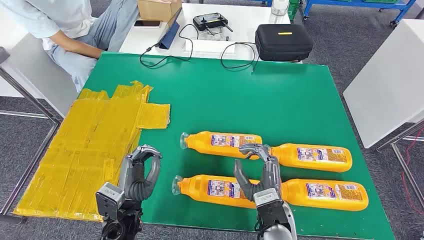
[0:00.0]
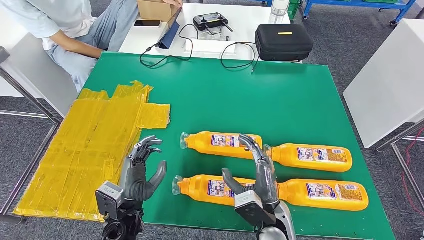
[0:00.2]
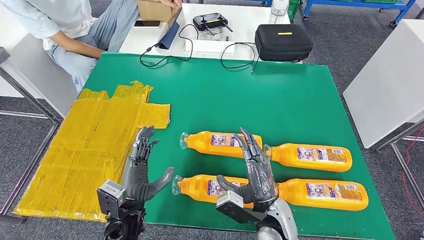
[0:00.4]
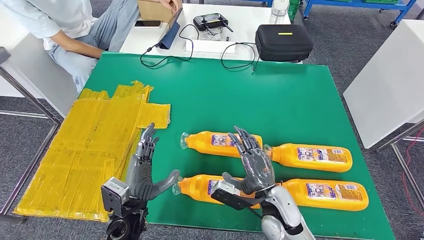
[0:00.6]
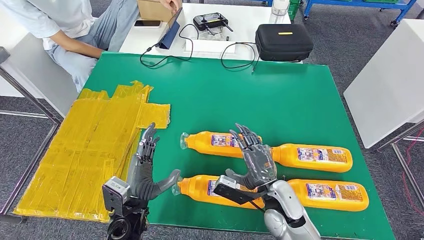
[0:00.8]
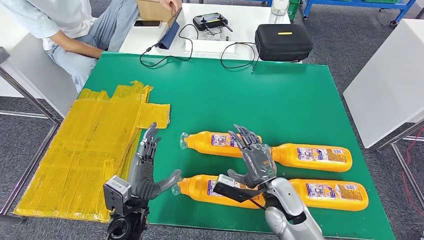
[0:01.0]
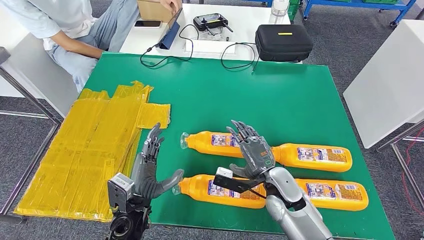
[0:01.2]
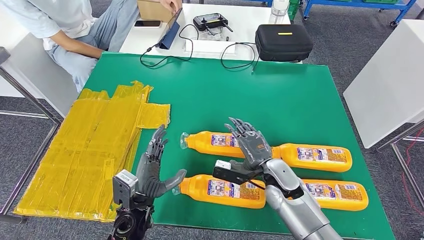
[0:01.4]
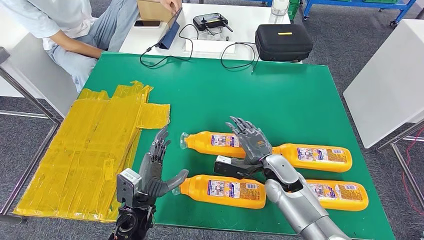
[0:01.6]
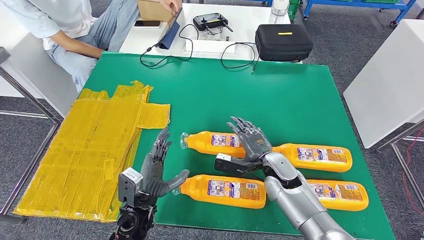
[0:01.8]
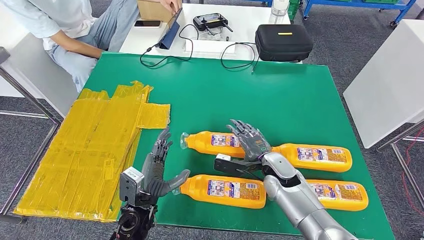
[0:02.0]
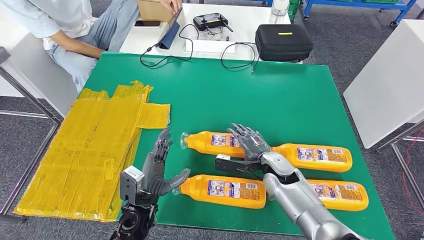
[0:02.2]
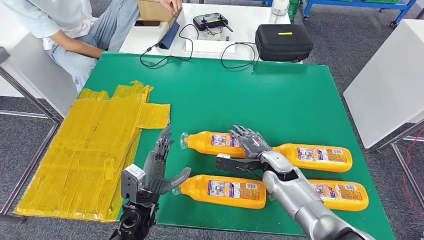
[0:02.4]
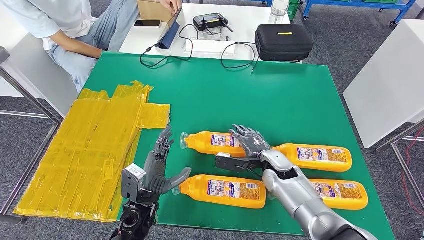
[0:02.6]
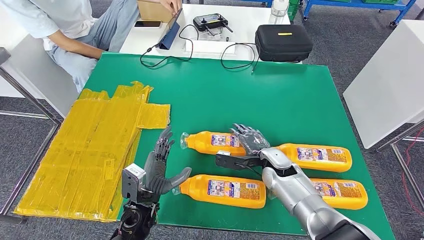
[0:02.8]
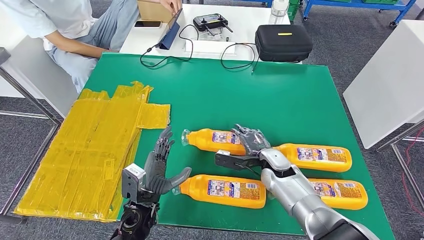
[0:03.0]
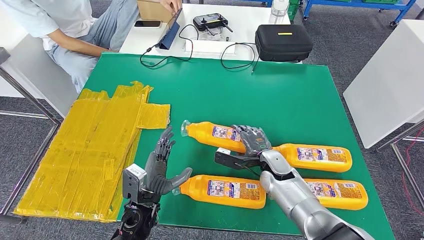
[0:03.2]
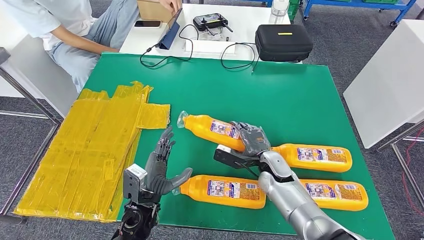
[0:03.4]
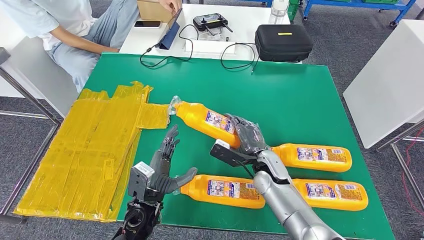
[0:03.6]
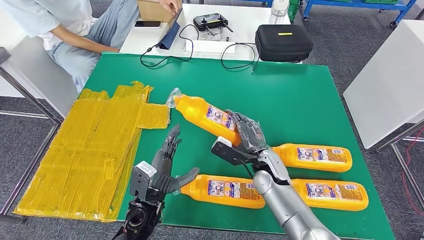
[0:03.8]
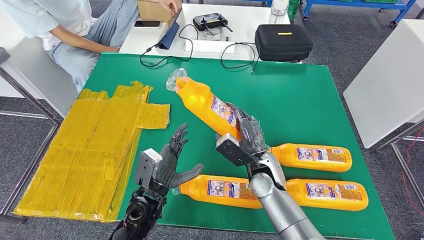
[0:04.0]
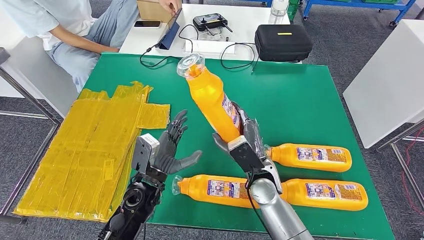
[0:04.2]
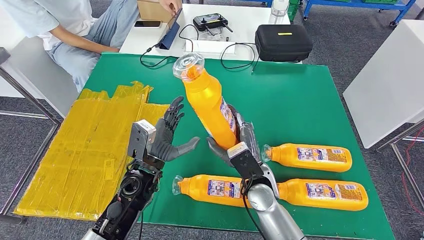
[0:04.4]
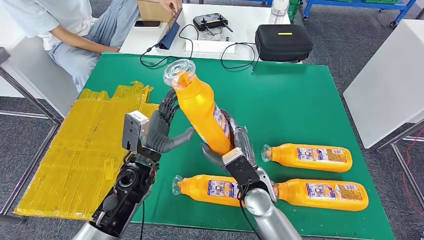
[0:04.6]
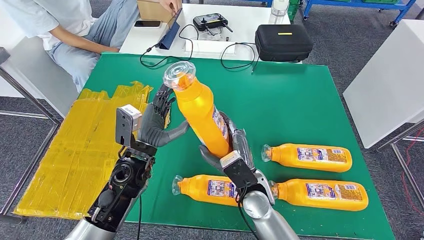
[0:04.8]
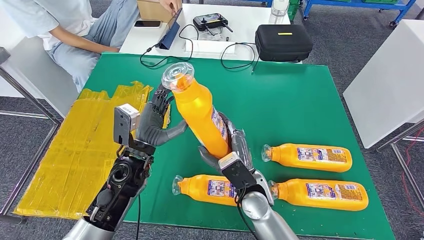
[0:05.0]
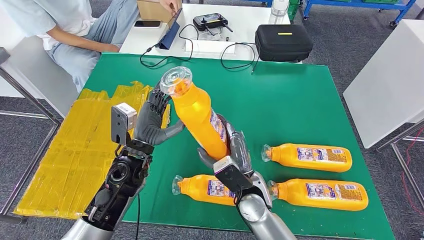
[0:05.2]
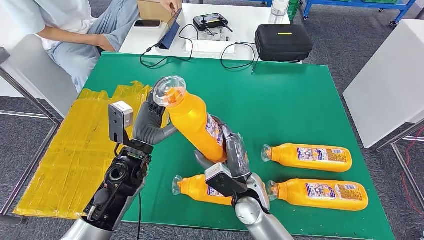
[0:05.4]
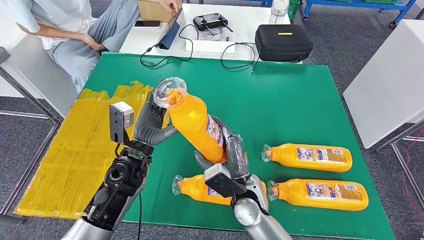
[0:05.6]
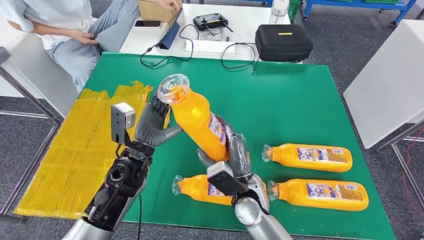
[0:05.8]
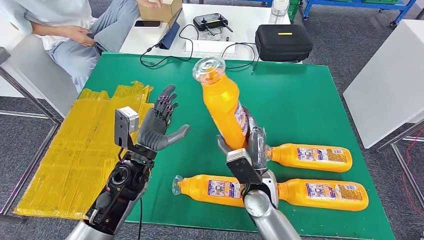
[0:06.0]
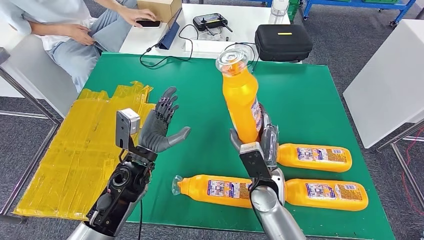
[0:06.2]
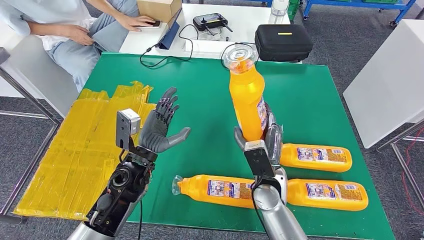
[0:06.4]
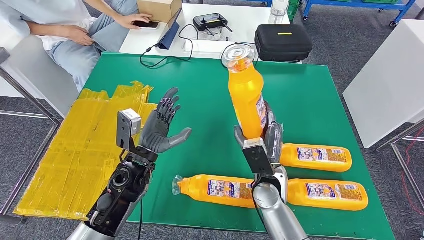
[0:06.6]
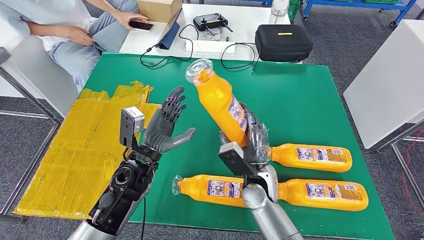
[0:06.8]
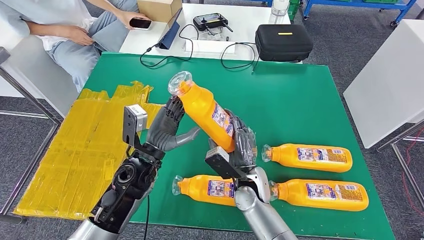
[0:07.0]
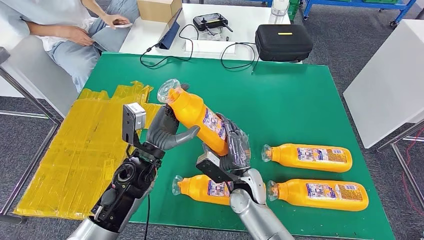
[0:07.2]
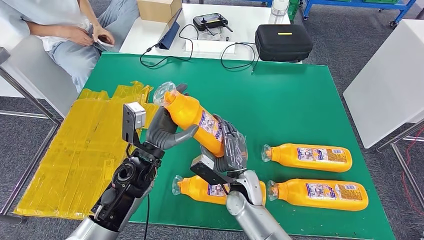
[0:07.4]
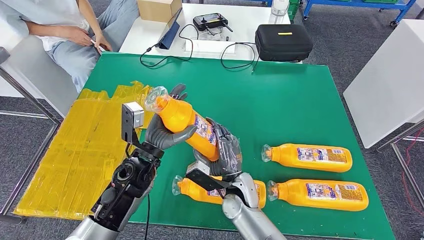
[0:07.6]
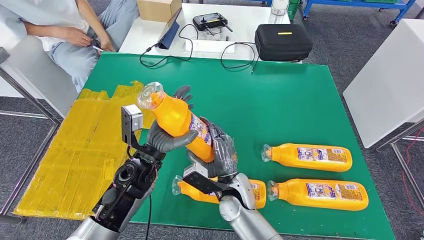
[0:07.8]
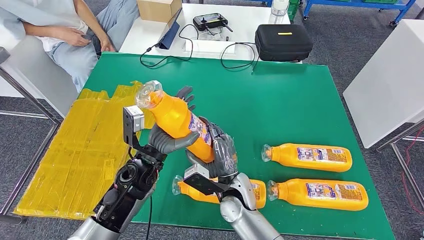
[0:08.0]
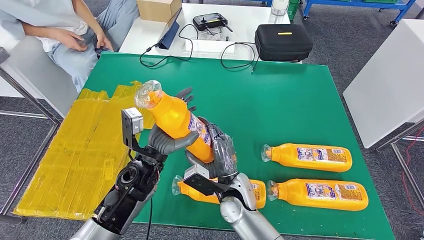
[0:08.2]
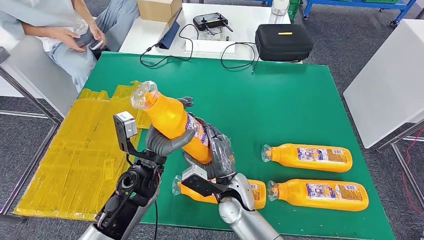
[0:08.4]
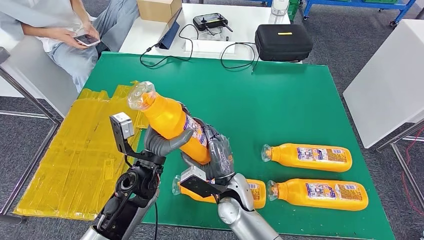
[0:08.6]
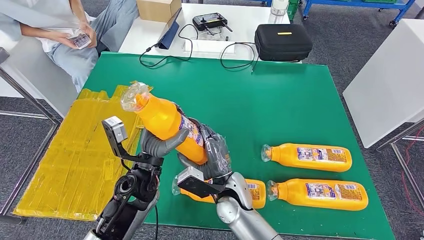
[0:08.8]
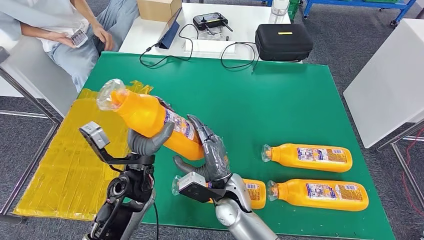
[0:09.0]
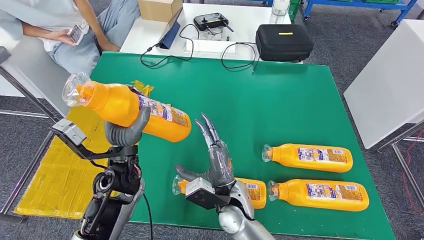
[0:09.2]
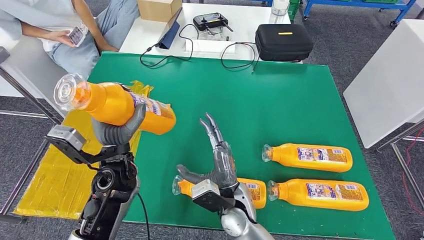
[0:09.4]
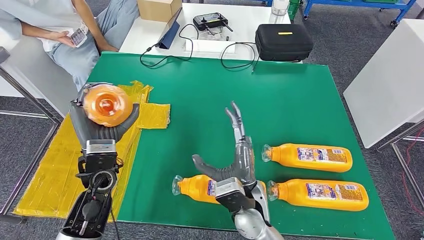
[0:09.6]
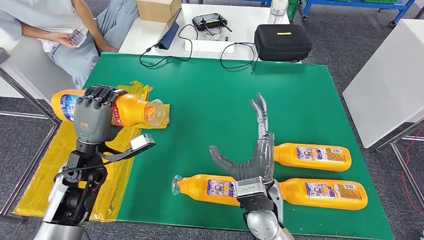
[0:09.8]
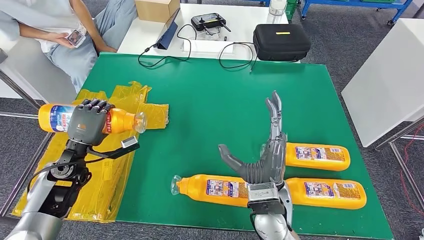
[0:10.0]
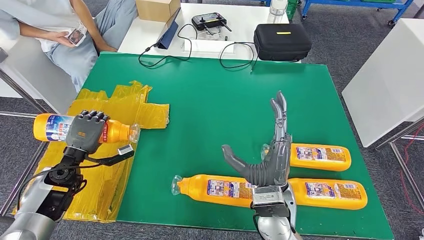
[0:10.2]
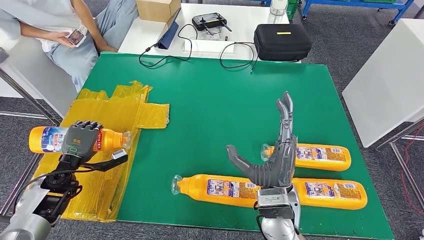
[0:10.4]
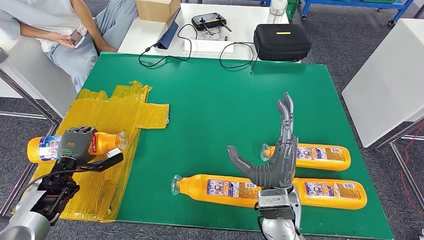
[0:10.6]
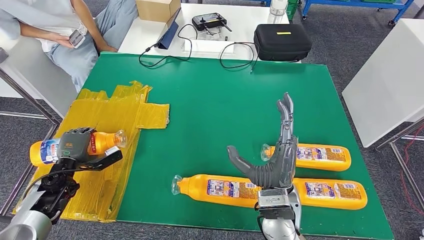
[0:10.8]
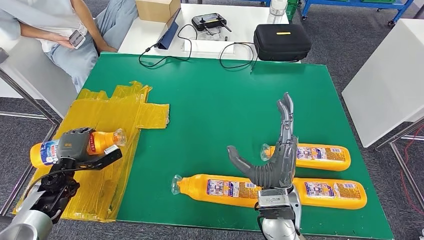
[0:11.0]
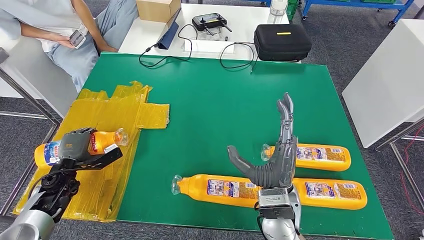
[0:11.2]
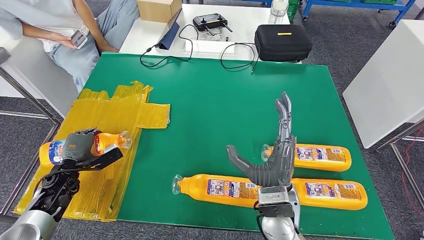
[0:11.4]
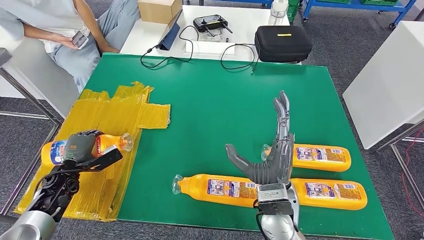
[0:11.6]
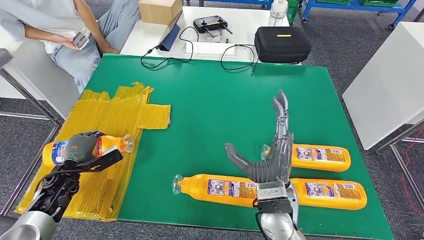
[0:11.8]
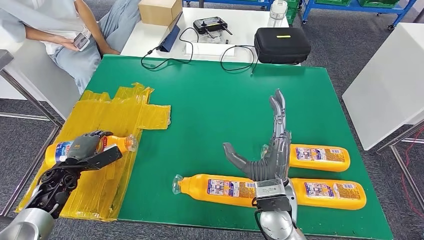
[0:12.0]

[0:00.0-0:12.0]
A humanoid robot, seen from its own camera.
Step, 0:00.0 to 0:06.2: Take the bottle from the table.
Step, 0:06.6 to 0:11.0: Flip the bottle to face forward.
0:01.6 to 0:03.0: There are only small adjustments of the hands.
0:03.0 to 0:04.4: The right hand moves to the left, backward and upward, about 10 cm. The left hand goes some 10 cm upward and forward.
0:04.4 to 0:06.0: The hands make only small movements.
0:06.0 to 0:07.6: The right hand moves roughly 5 cm.

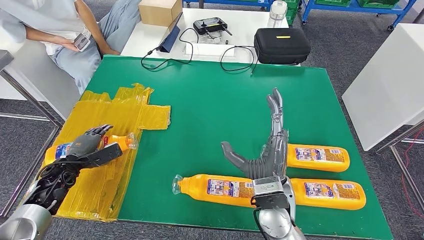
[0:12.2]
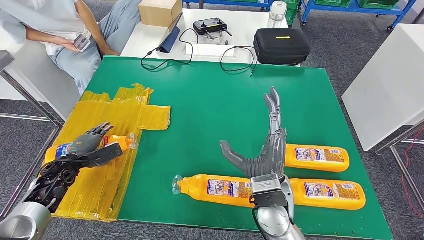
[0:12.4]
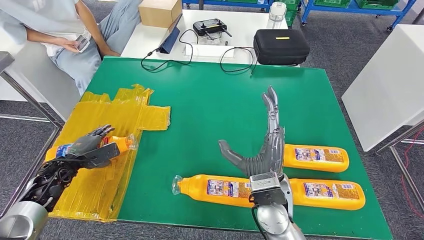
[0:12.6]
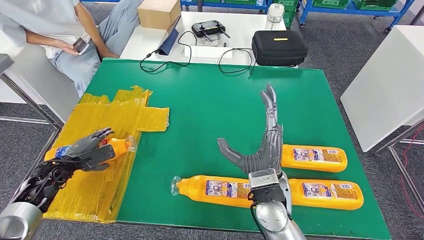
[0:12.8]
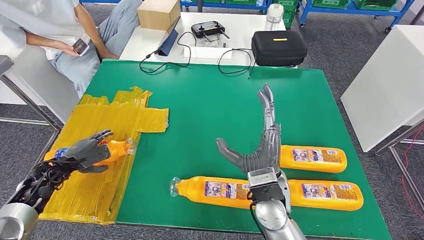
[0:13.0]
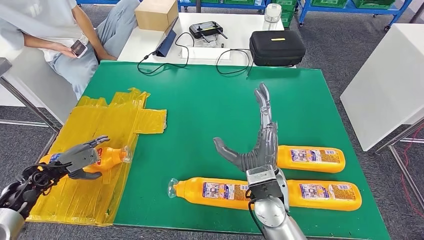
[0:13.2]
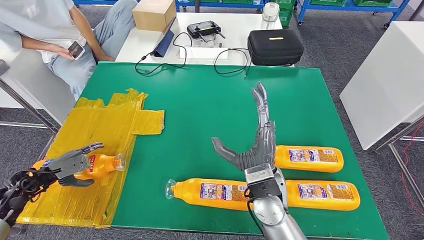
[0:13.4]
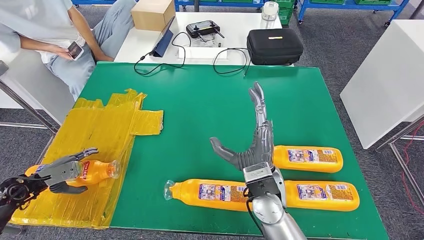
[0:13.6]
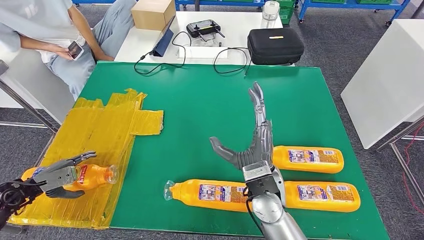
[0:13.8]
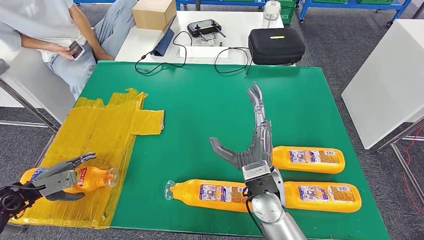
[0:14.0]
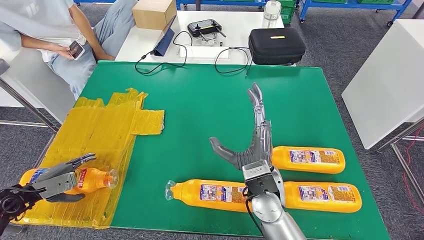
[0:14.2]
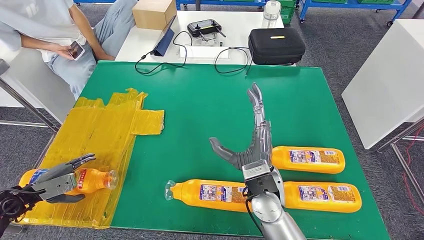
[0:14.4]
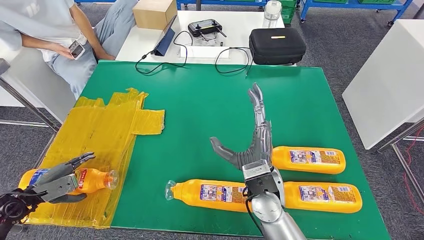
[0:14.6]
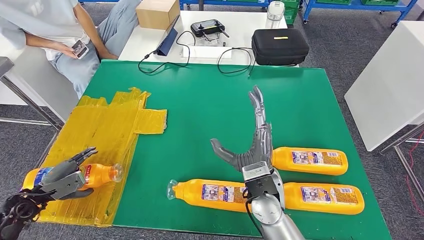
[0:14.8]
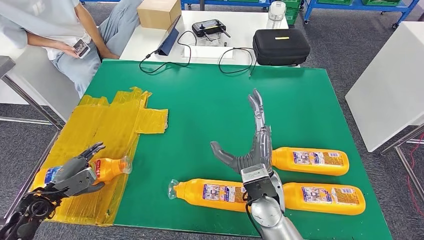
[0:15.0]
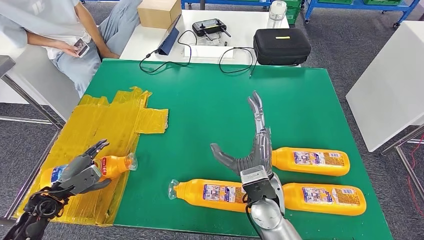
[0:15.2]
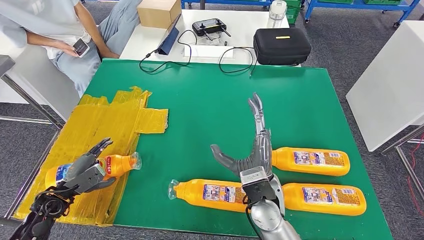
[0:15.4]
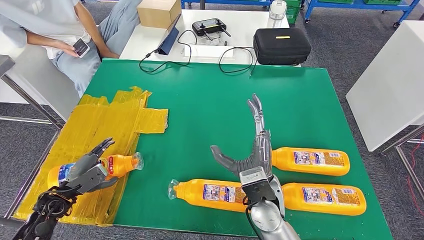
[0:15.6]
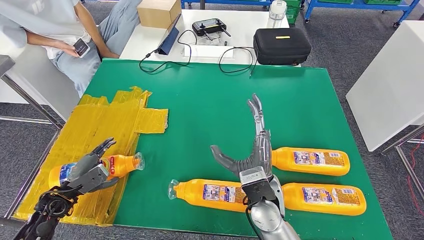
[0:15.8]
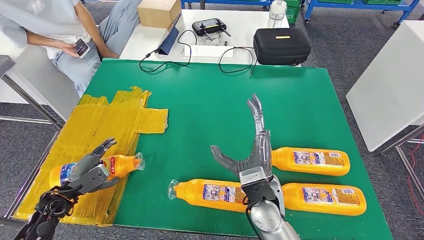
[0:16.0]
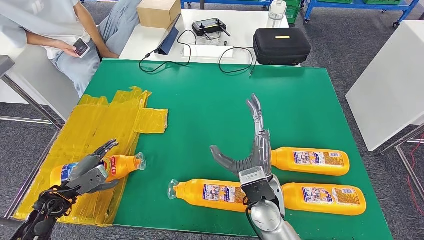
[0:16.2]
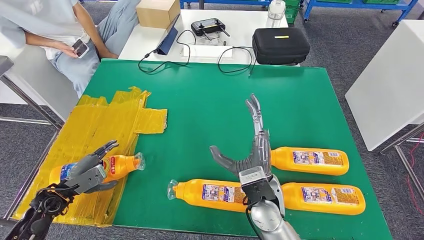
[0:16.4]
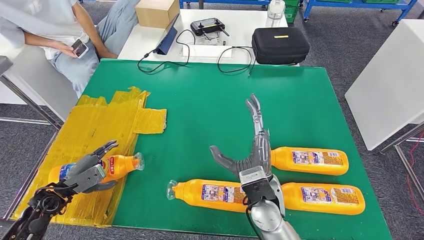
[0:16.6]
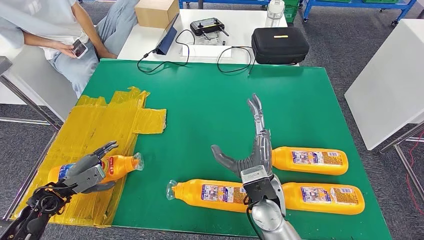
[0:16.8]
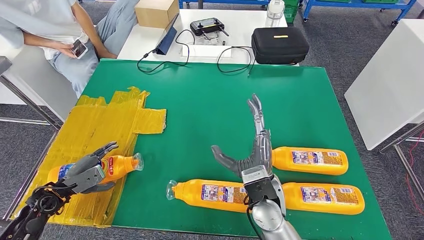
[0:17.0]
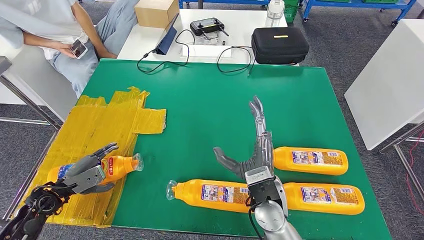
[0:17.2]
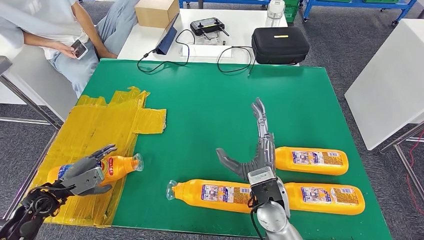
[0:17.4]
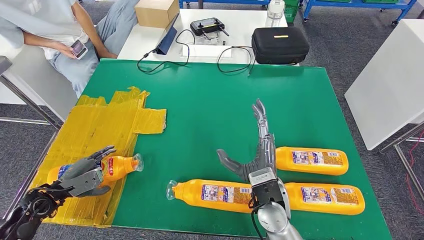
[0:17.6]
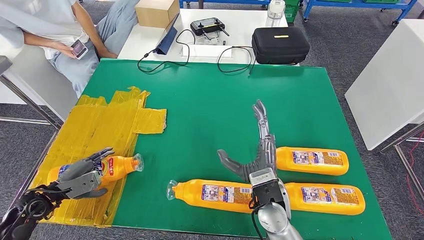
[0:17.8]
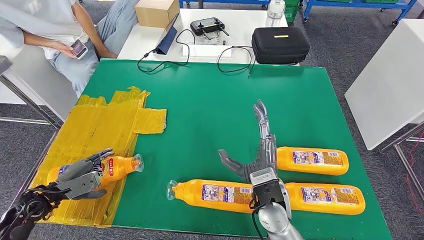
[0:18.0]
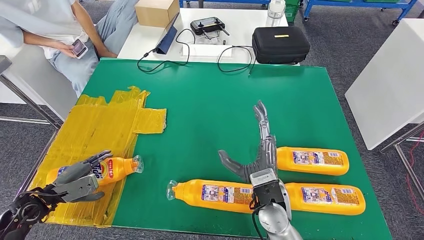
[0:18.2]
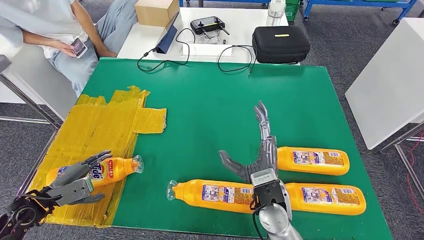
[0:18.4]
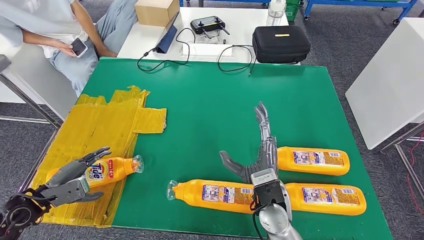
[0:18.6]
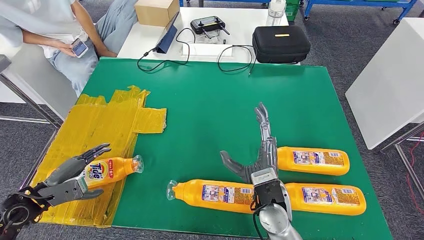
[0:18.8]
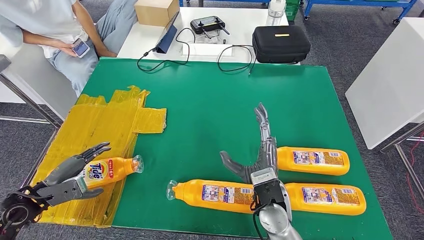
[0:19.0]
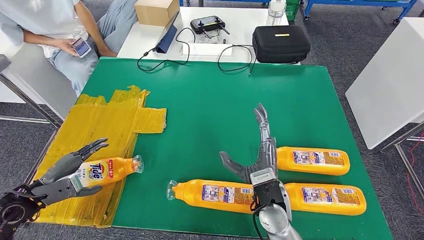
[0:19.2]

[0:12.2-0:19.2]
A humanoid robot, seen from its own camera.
0:15.0 to 0:17.8: The hands make only small movements.
0:17.8 to 0:19.2: The left hand is displaced upward by approximately 5 cm.
